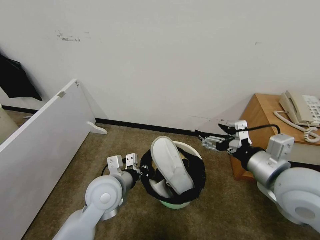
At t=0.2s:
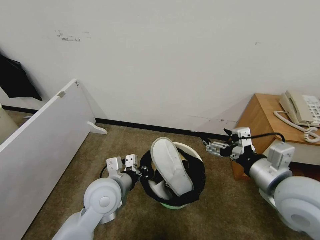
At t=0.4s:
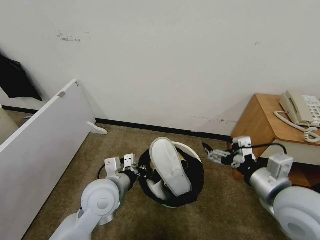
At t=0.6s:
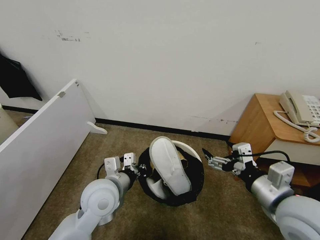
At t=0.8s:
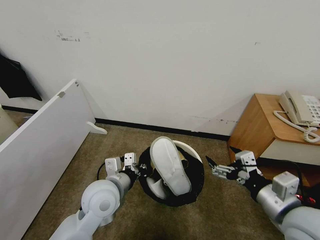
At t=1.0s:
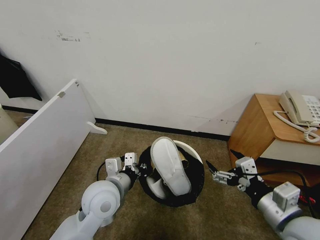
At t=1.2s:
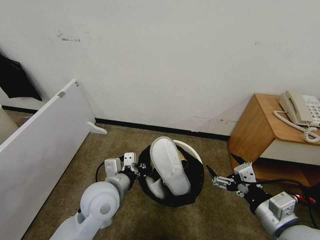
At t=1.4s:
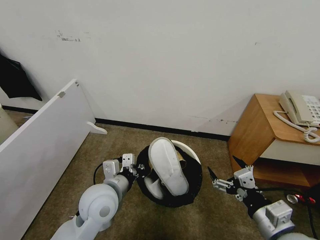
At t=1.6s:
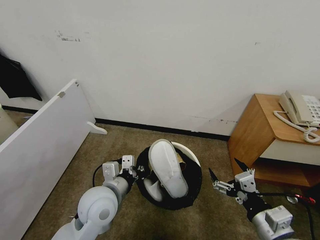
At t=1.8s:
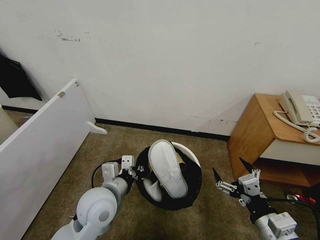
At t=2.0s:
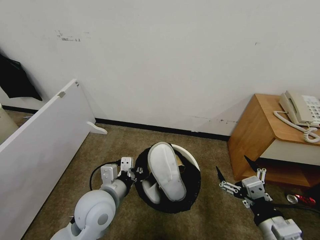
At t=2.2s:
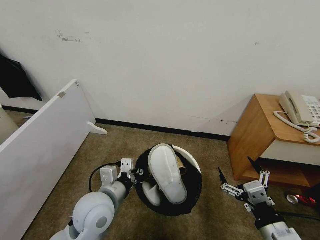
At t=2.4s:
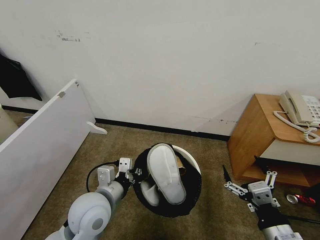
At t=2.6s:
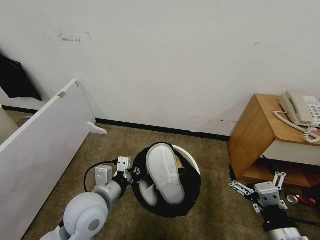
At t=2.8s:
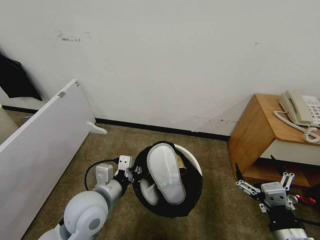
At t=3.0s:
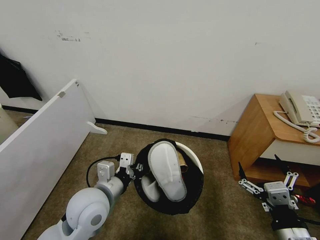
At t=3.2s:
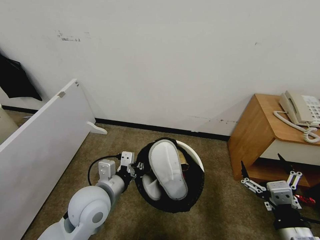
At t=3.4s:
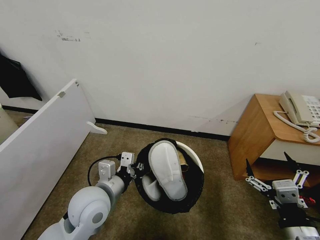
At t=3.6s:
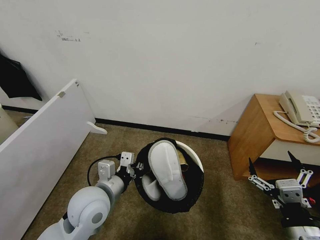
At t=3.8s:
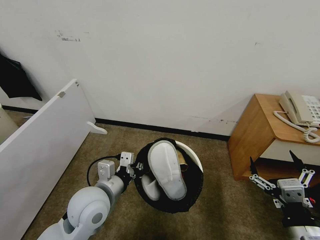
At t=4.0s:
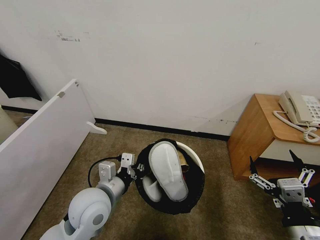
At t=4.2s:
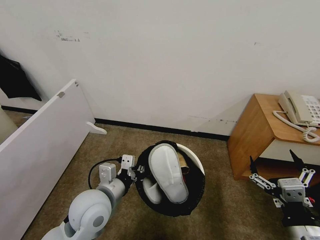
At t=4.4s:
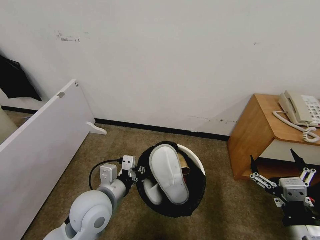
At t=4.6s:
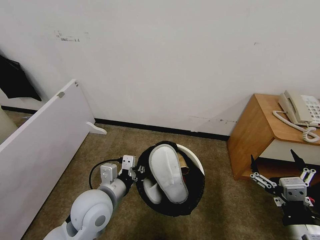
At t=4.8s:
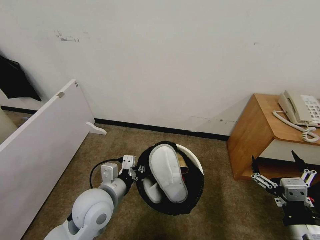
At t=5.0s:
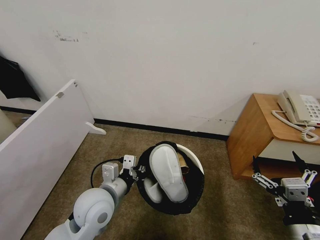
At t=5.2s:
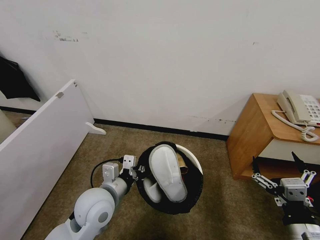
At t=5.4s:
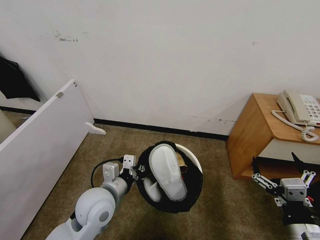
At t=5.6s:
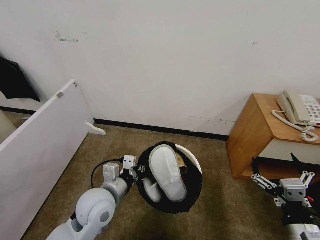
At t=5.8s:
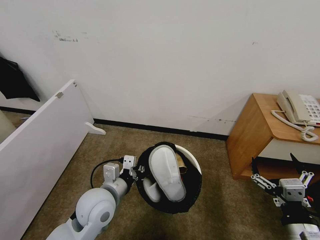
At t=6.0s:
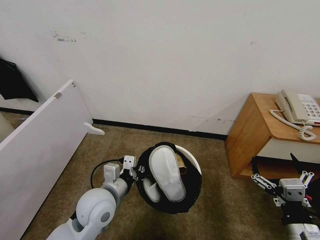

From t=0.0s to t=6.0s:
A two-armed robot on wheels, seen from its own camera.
Task of the whole recording: Pick up the trash bin, then pick up the garbage from the floor and place it into the trash bin.
From t=0.0s to t=1.6s: The right gripper travels downward and backward by about 15 cm.
From t=3.0s to t=6.0s: The grippers stay close to where they were, moving slightly.
